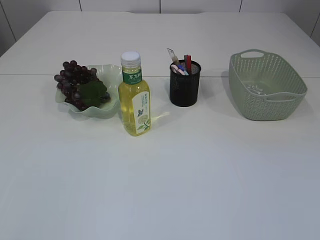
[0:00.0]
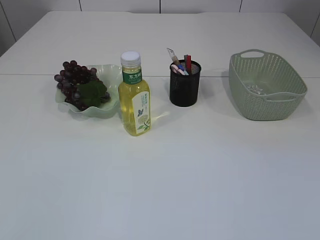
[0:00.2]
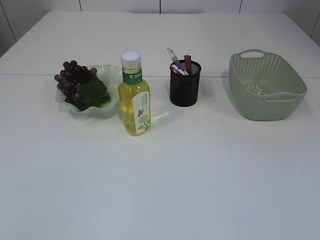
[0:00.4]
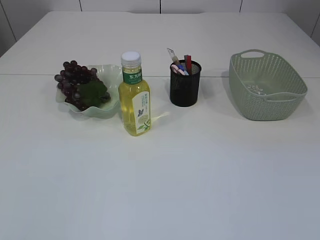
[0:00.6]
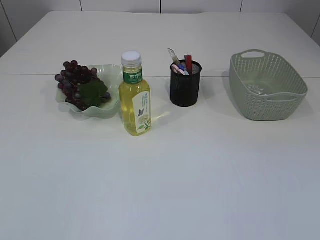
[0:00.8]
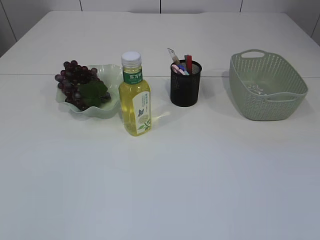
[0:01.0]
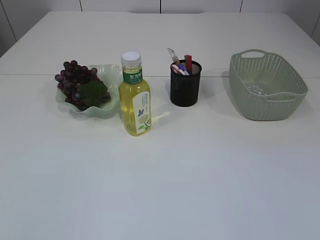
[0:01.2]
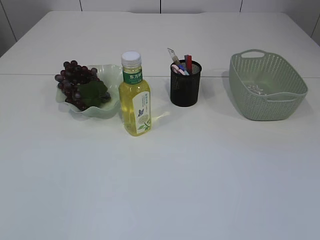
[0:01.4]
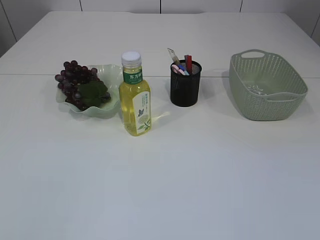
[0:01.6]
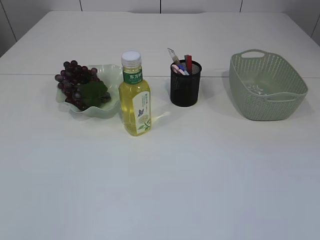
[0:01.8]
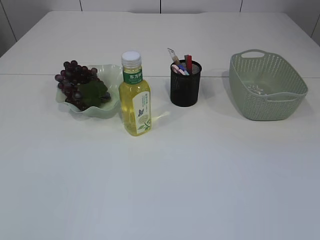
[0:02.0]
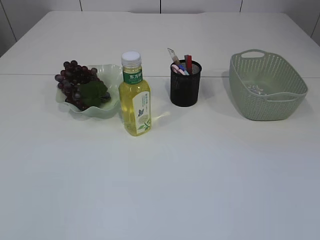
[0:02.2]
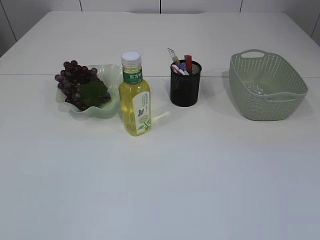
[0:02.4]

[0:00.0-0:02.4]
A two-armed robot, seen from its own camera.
0:01.2 to 0:02.4: Neither gripper changes place.
